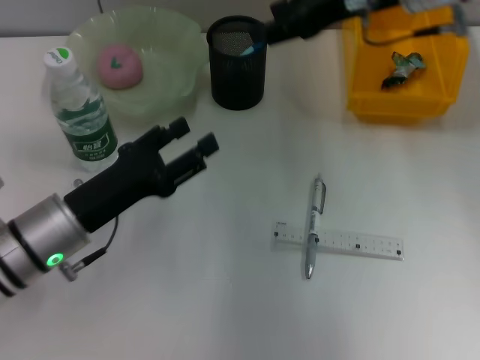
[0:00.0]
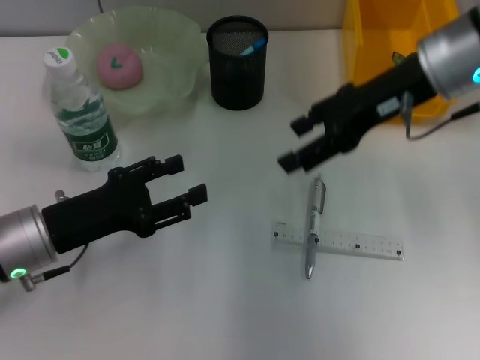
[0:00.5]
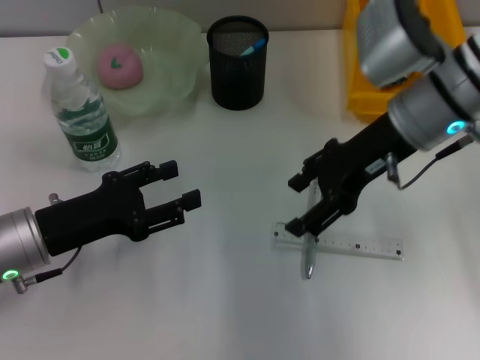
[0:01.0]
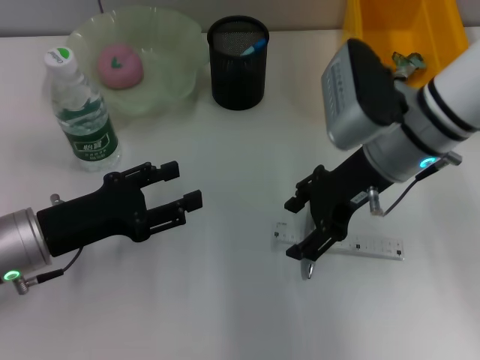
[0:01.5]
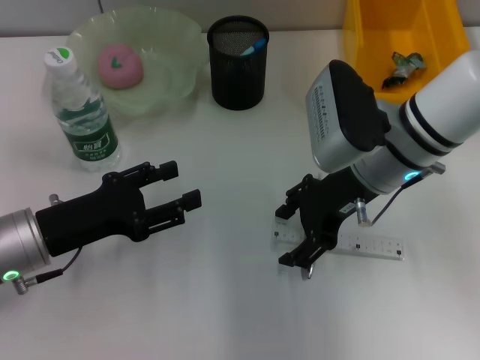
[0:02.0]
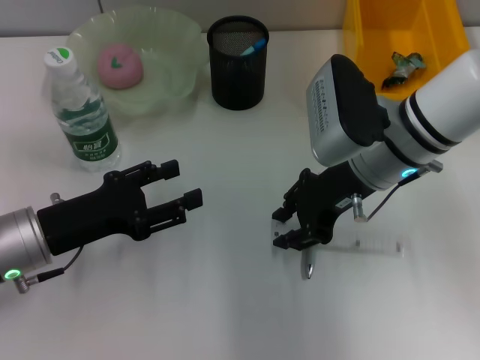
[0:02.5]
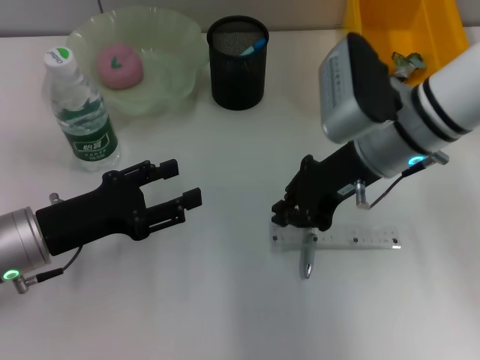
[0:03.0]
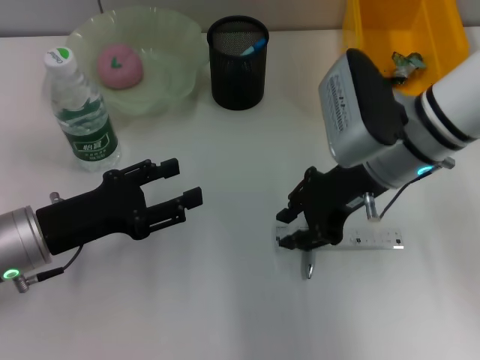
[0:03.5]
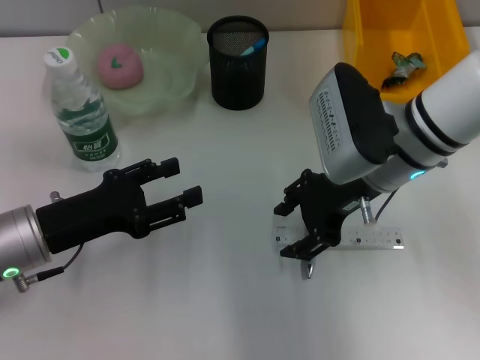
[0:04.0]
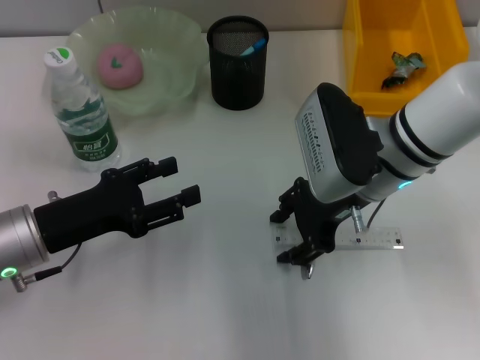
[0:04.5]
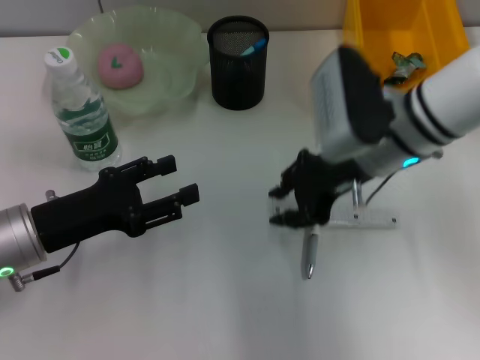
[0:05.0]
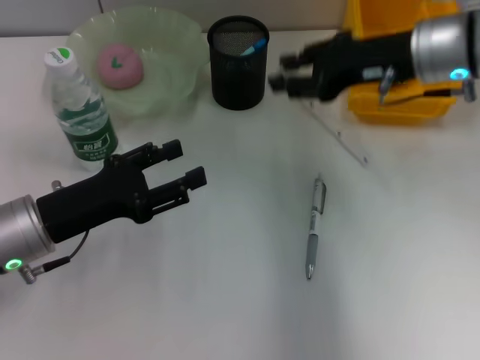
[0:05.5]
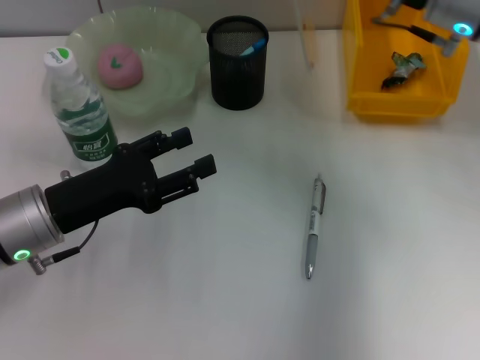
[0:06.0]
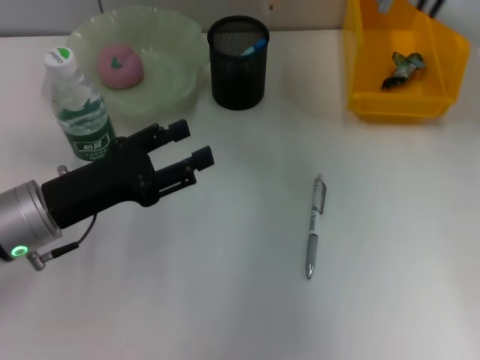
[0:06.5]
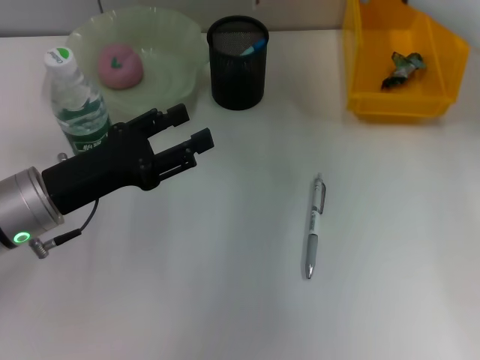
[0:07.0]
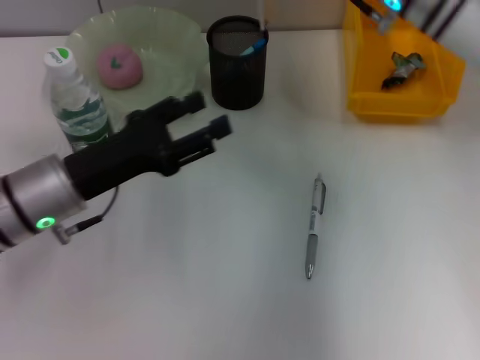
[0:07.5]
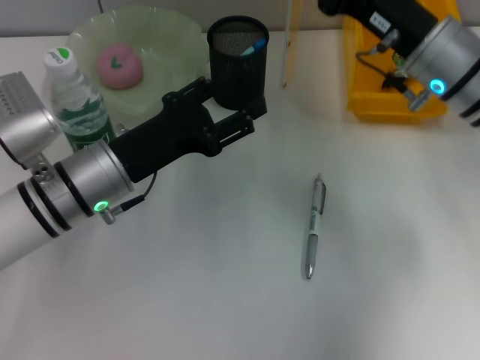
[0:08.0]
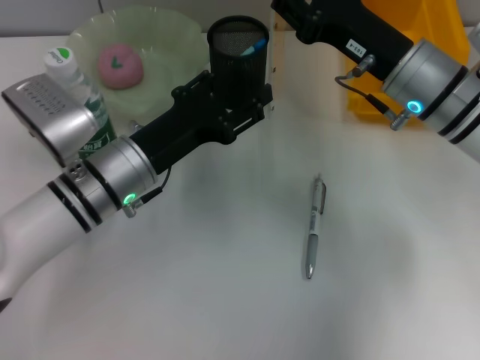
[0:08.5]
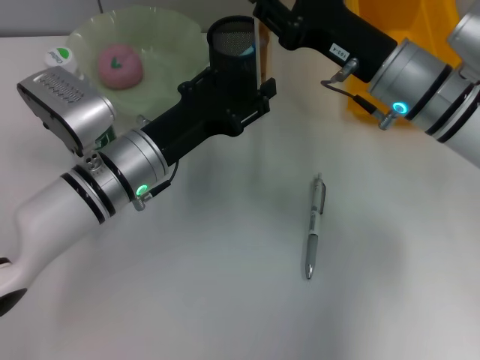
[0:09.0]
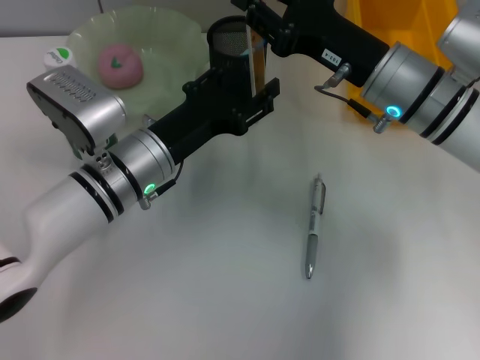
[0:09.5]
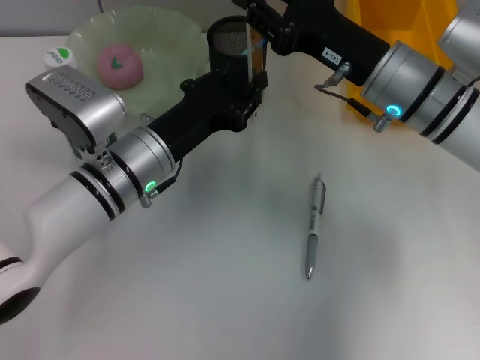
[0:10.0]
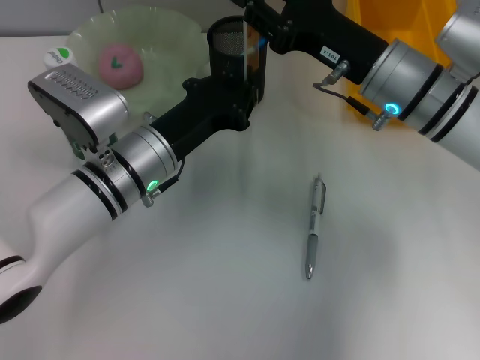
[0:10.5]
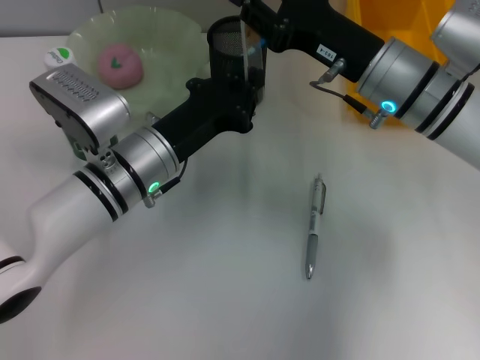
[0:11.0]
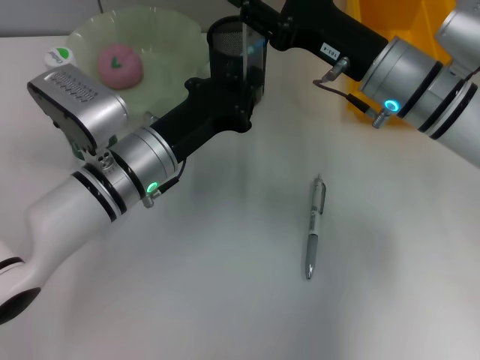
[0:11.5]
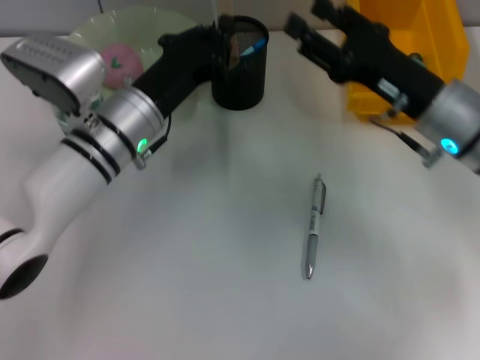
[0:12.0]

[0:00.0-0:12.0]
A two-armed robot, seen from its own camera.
Step, 0:00.0 to 0:04.5: Grab the ruler with the right hand.
Step, 0:05.0 to 0:11.5: Pass the ruler from the right hand to the left hand.
0:00.0 to 0:02.0: The right gripper moves downward and backward, approximately 15 cm.
0:02.0 to 0:04.0: The right gripper closes, then opens again.
0:04.0 to 0:06.0: The right gripper is displaced upward, to the right and forward by about 10 cm, and closes.
0:06.0 to 0:08.0: The left gripper heads to the right, covering some 5 cm; the right gripper goes some 5 cm downward.
0:10.0 to 0:12.0: The left gripper closes. The right gripper is displaced to the right by some 5 cm.

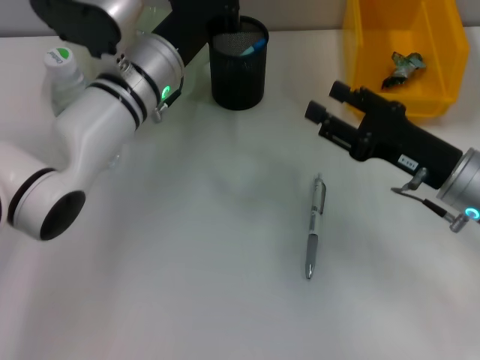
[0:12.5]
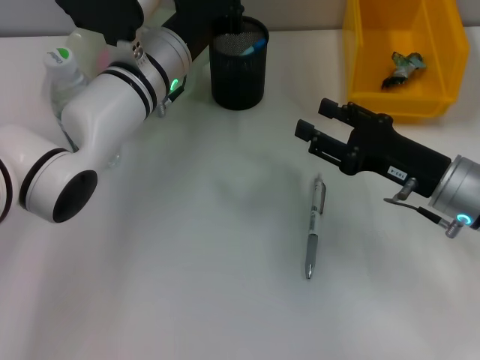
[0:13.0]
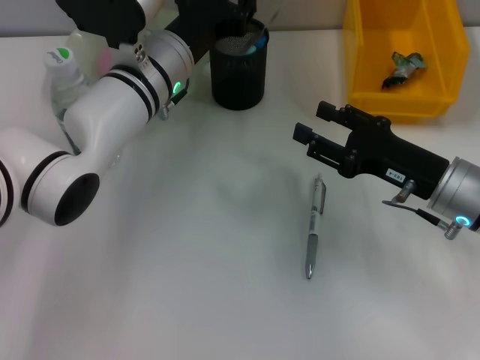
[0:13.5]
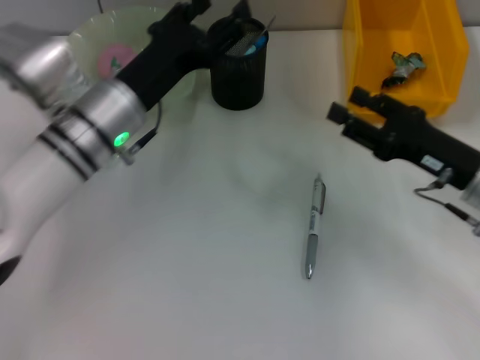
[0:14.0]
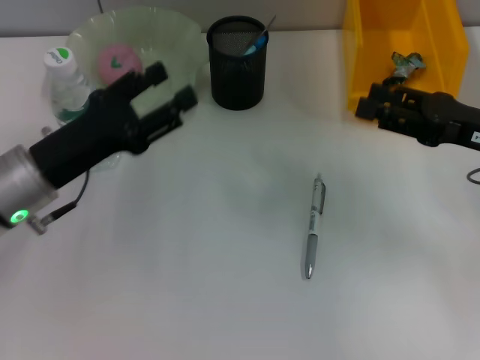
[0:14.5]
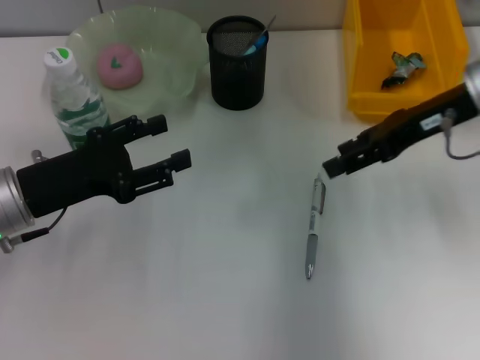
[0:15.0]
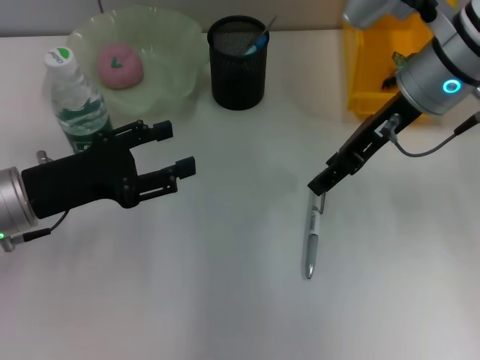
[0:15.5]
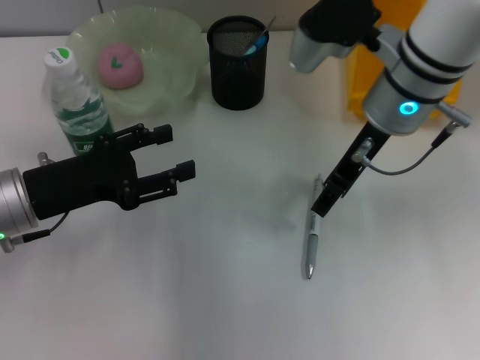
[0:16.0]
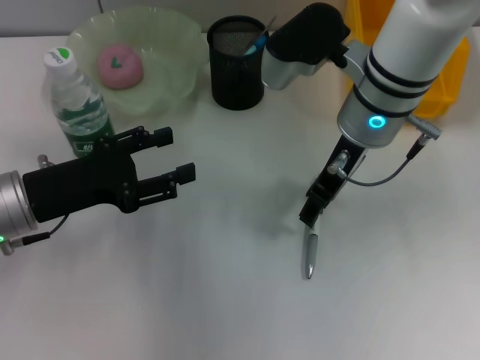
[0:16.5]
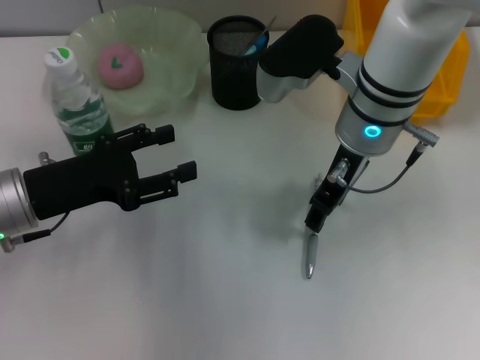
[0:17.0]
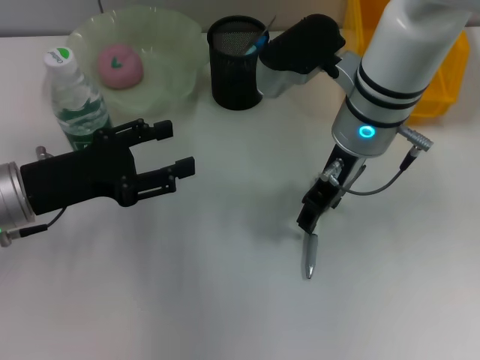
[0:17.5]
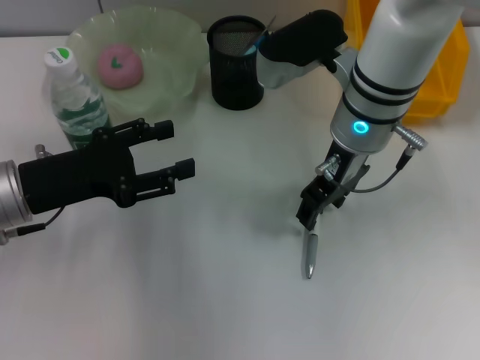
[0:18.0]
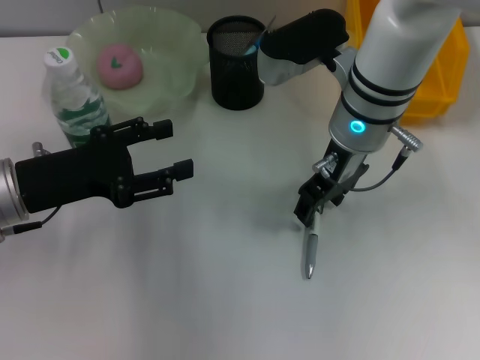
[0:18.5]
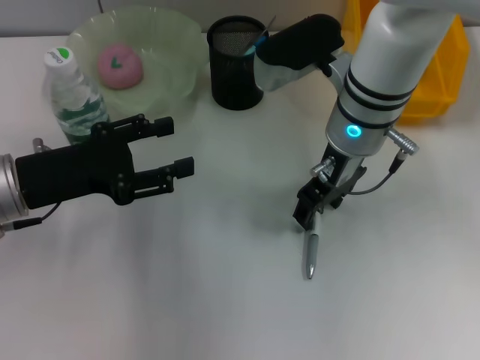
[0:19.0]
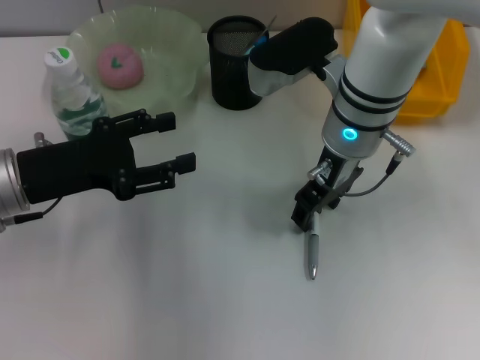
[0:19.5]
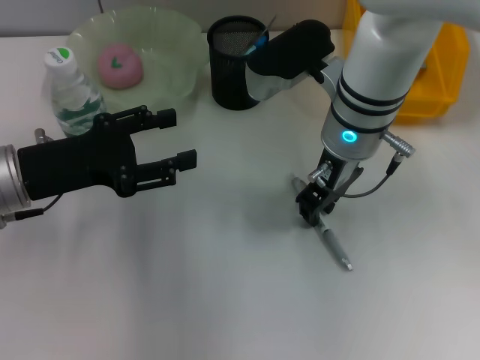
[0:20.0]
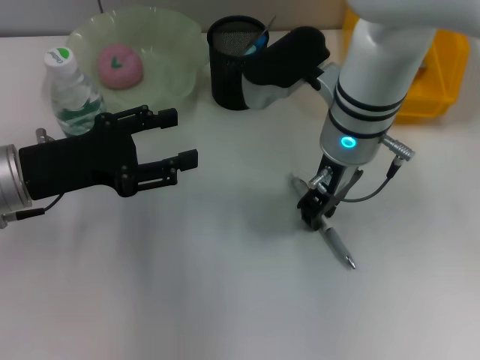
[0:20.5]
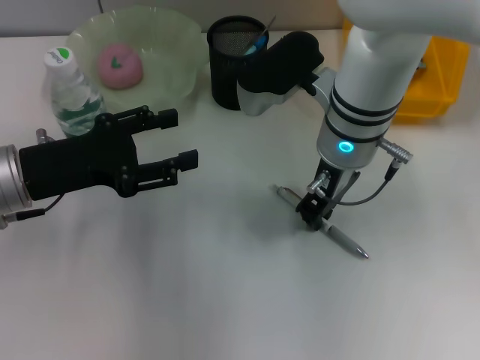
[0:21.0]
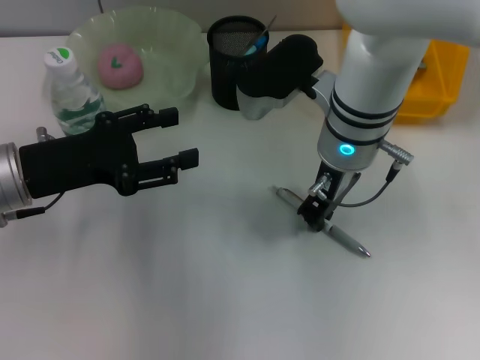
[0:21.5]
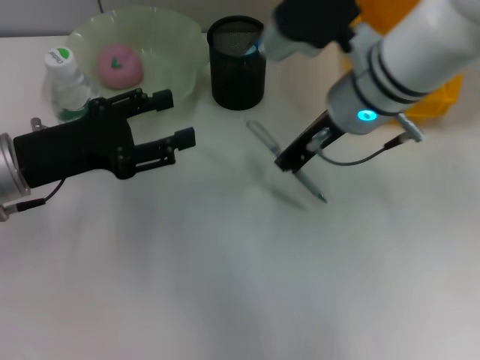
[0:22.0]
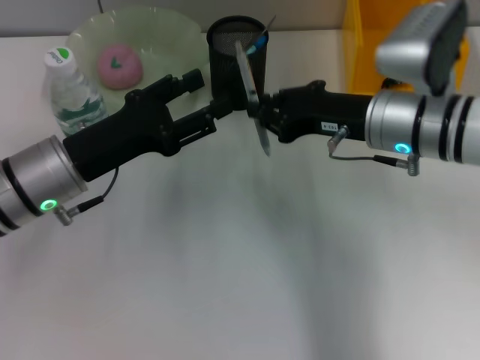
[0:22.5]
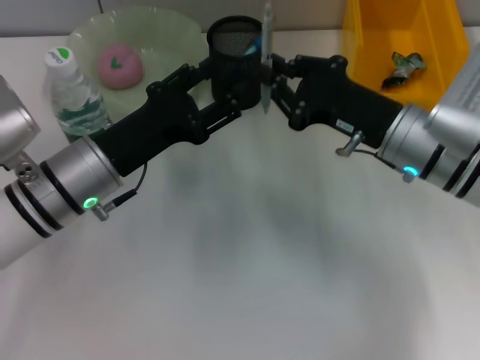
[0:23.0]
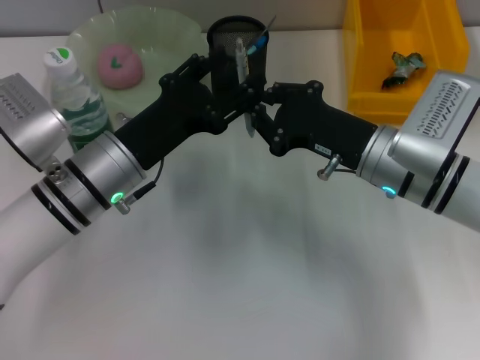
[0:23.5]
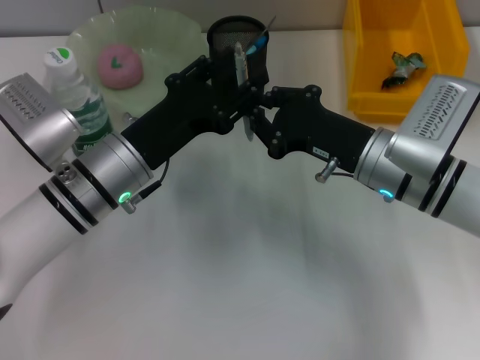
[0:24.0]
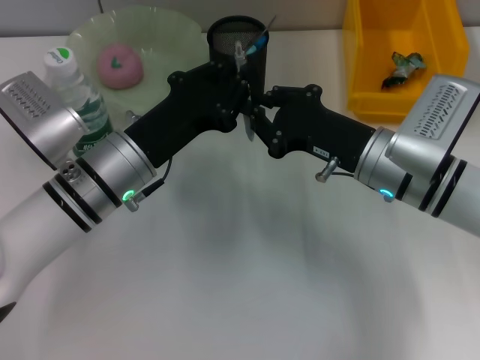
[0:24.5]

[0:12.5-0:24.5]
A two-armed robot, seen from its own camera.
Step, 0:12.5 to 0:13.5: Place the ruler into the pen holder with the left hand.
Step, 0:14.0 to 0:21.0: Grab the gray spring-action pen with the right hand.
0:12.5 to 0:14.5: The left gripper shifts approximately 15 cm to the left and backward, and opens its fingers, while the right gripper travels to the right and upward by about 10 cm.
0:14.5 to 0:16.5: The right gripper is displaced to the left by some 20 cm.
0:16.5 to 0:18.5: There are only small adjustments of the grippers.
0:18.5 to 0:20.5: The right gripper closes its fingers.
0:20.5 to 0:22.5: The right gripper moves to the right, some 10 cm.
0:22.5 to 0:24.5: The left gripper is displaced to the right by approximately 5 cm, and closes. The right gripper changes place by some 5 cm.

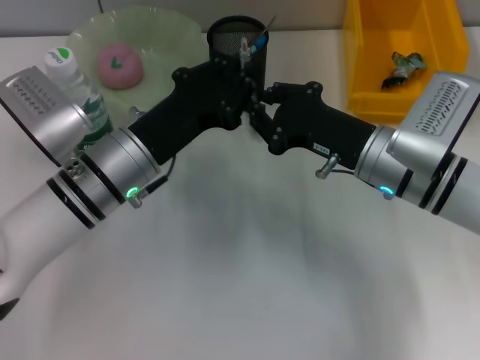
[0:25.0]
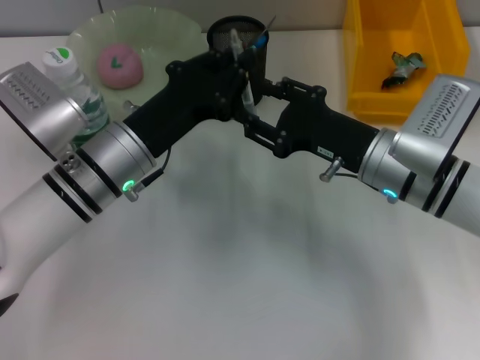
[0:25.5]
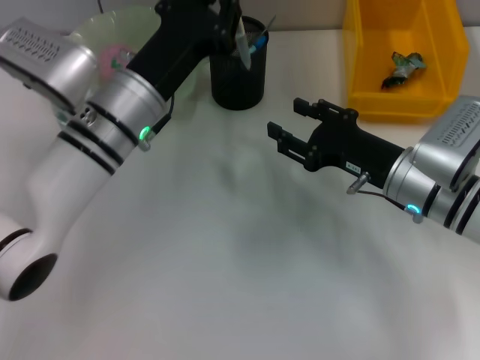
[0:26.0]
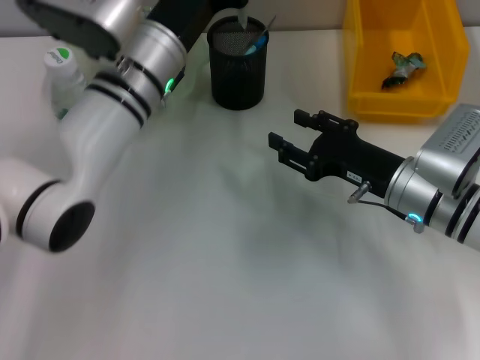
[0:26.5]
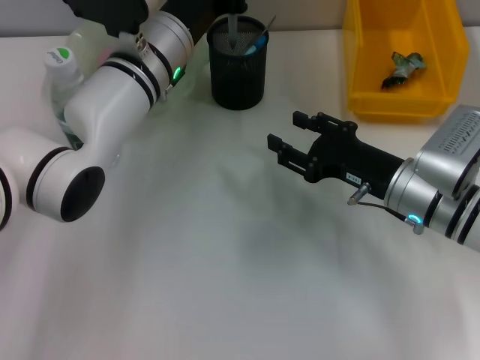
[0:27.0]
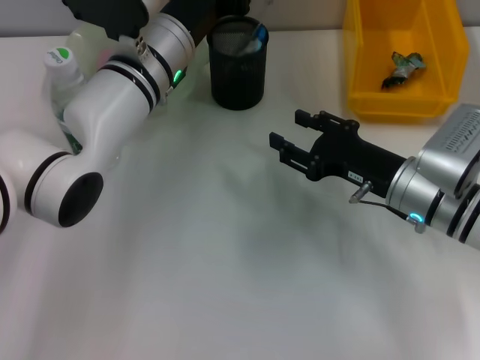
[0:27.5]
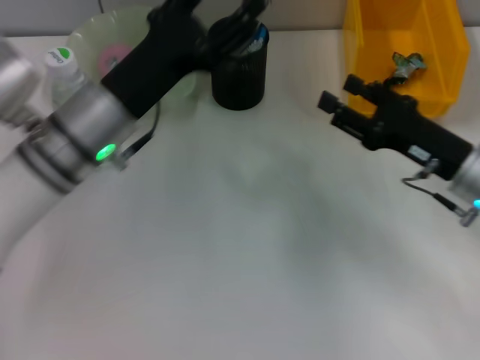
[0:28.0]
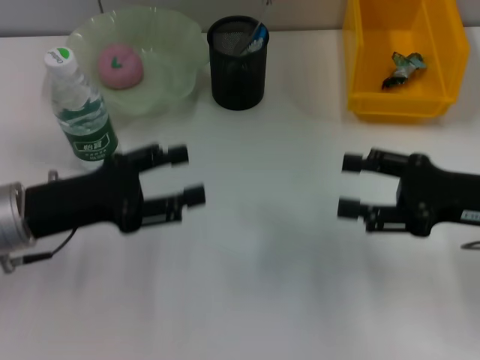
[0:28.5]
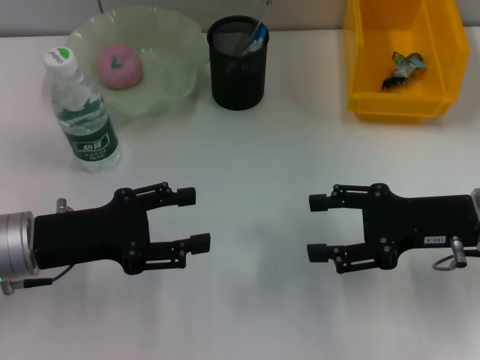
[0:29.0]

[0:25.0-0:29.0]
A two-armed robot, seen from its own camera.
Step, 0:26.0 to 0:27.5: Place the gray spring-action pen into the pen holder with the left hand.
0:25.0 to 0:27.0: The left gripper travels forward by approximately 10 cm; the right gripper shifts by roughly 5 cm, and opens up.
0:27.0 to 0:29.0: The left gripper shifts approximately 20 cm to the left and backward, and opens. The right gripper heads to the right, covering some 5 cm.
